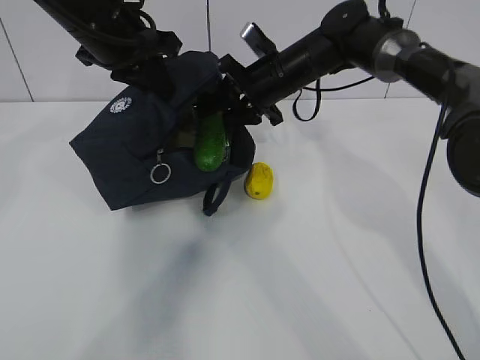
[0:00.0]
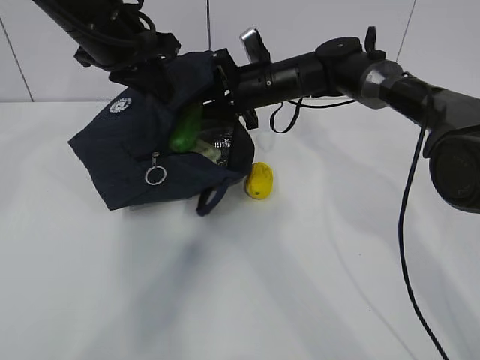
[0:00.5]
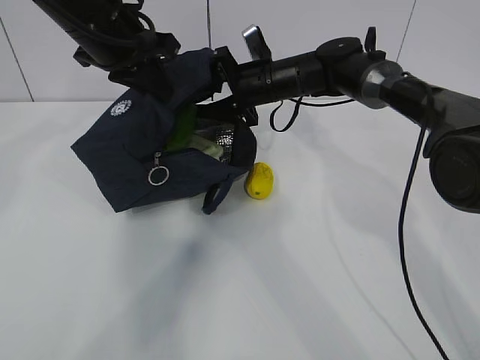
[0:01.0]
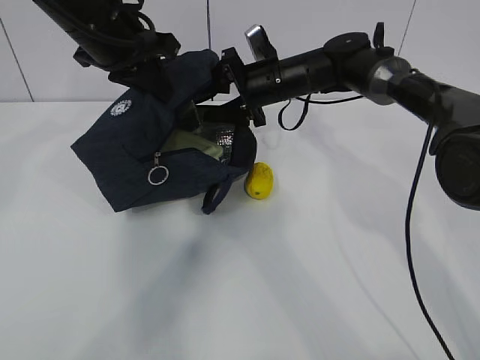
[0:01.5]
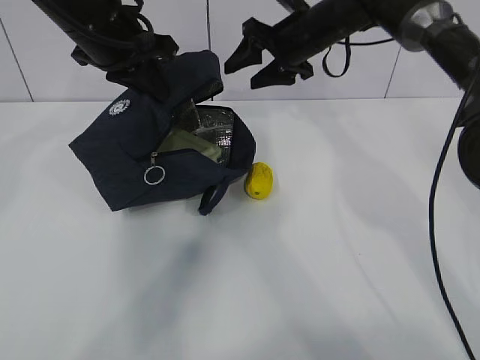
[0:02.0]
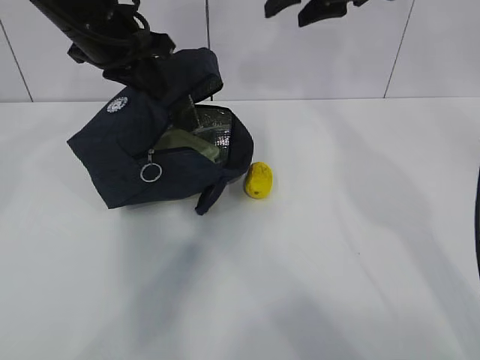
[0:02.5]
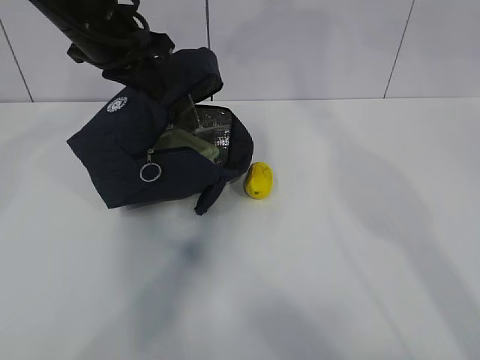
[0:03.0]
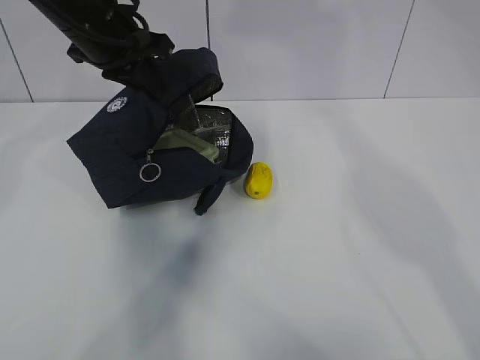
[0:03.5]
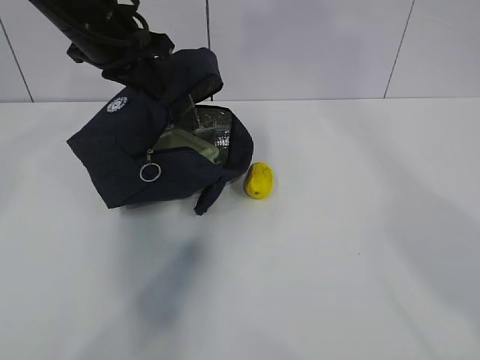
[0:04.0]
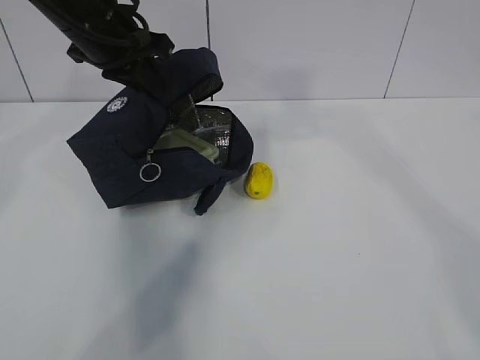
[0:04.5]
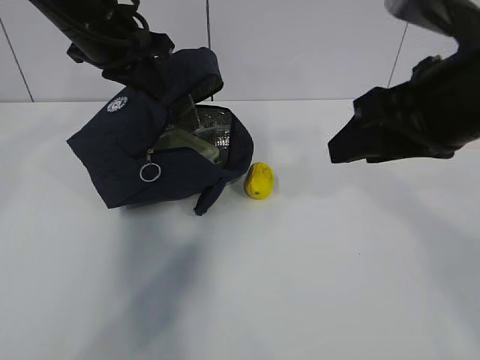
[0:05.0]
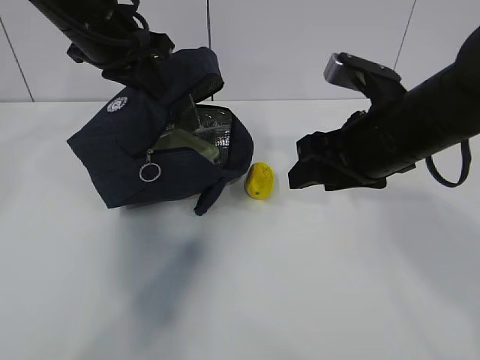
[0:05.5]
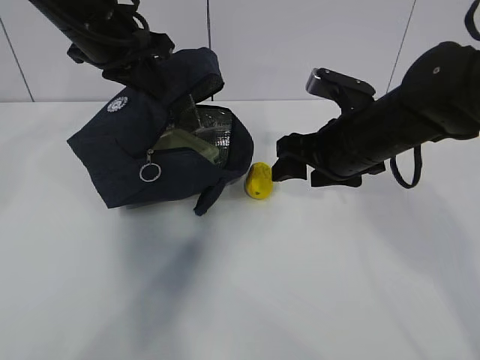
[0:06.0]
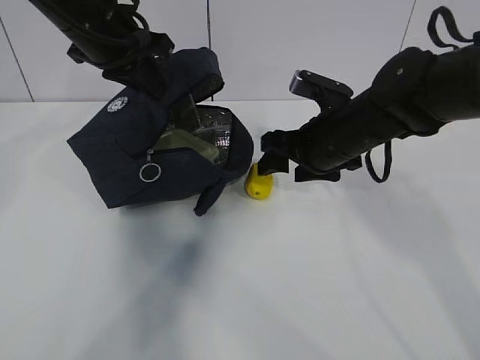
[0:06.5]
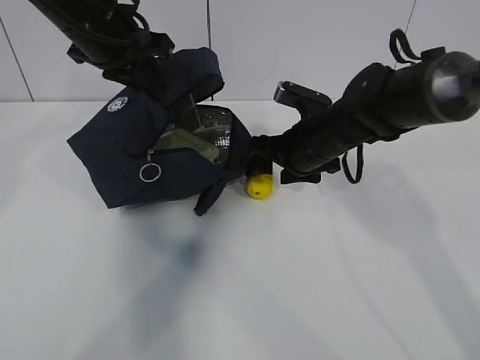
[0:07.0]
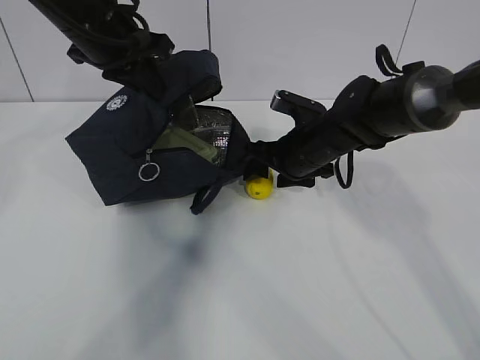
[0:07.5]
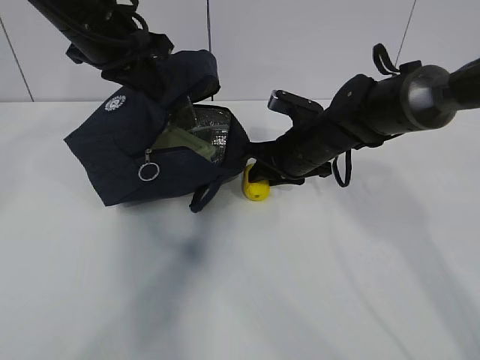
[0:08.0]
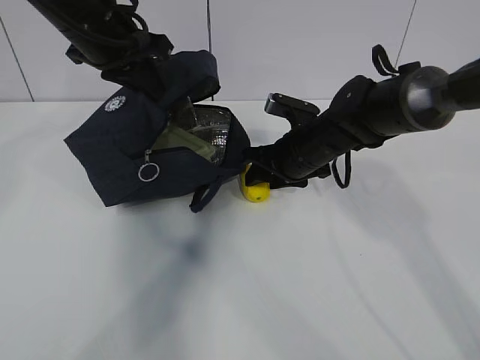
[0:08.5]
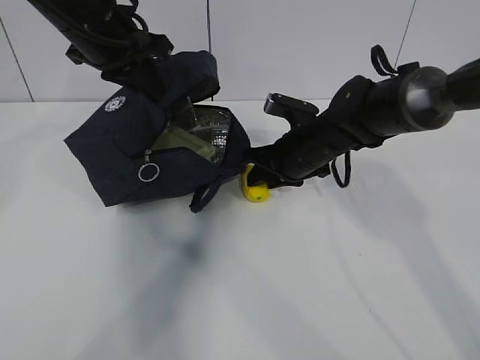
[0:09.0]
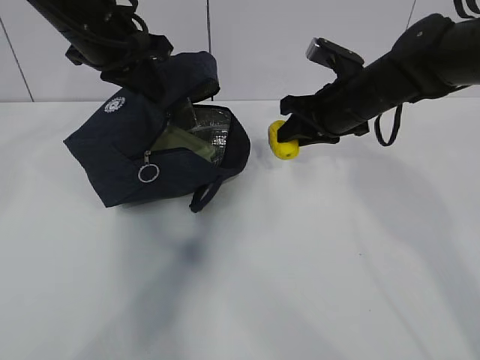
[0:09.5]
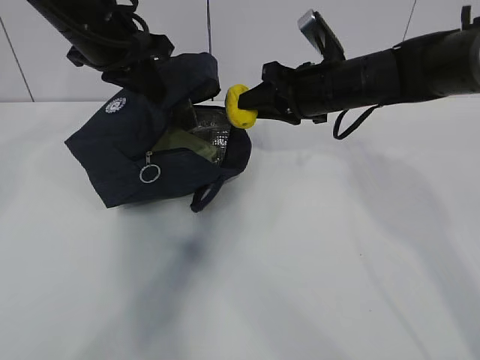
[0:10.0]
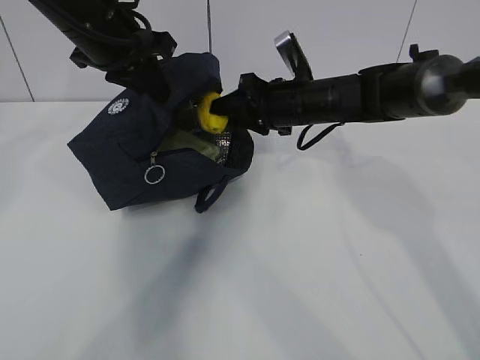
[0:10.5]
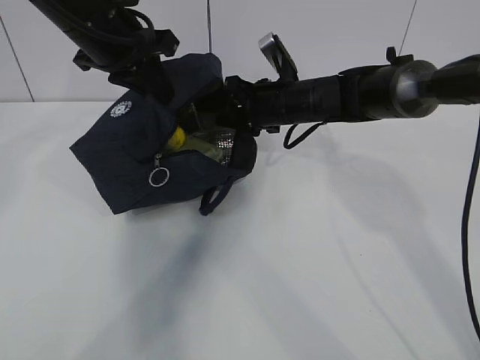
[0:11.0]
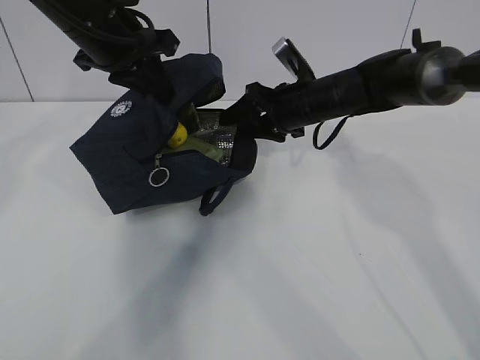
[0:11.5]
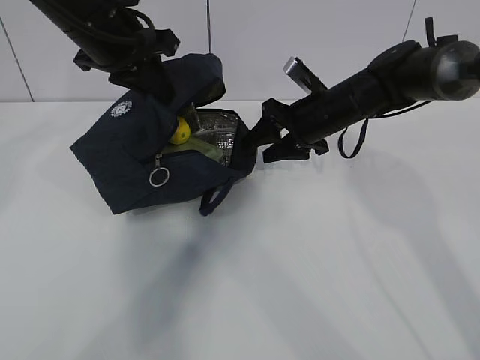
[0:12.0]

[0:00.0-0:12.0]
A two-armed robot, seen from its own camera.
Step, 0:00.0 to 0:03.0: Grab the lemon with your right hand.
Step, 0:06.0 to 0:06.5: Grab the lunch bag with your right hand.
Step, 0:07.0 to 0:08.5: Stand the lunch bag upright with your right hand.
0:00.0 to 0:02.0: The right gripper ends up approximately 5 cm from where it was, and opens.
0:02.0 to 0:04.0: The right gripper moves upward and backward, some 40 cm.
0:04.0 to 0:06.0: The right gripper heads downward, covering about 40 cm.
0:06.0 to 0:08.0: The right gripper shifts approximately 10 cm forward and downward, and closes.
0:08.0 to 0:10.0: The right gripper shifts approximately 10 cm upward.
0:10.0 to 0:12.0: The right gripper heads downward, covering about 5 cm, and opens up.

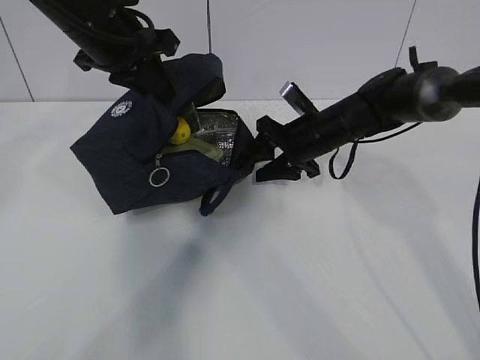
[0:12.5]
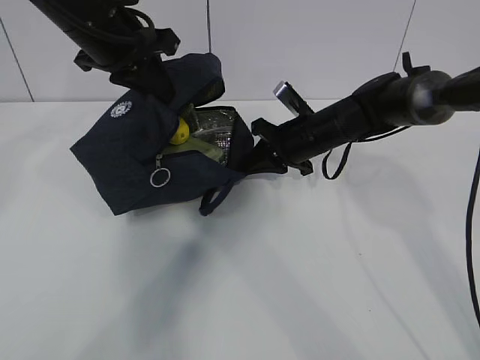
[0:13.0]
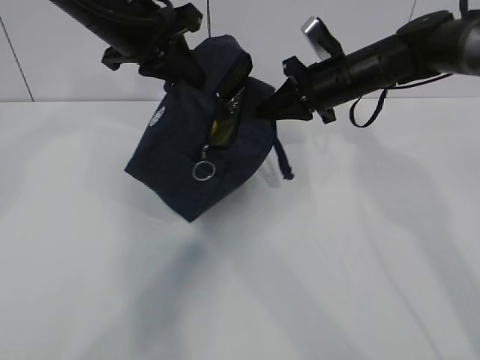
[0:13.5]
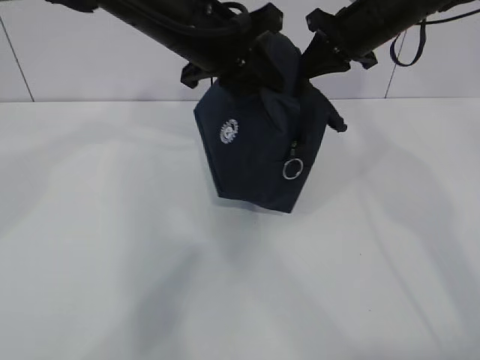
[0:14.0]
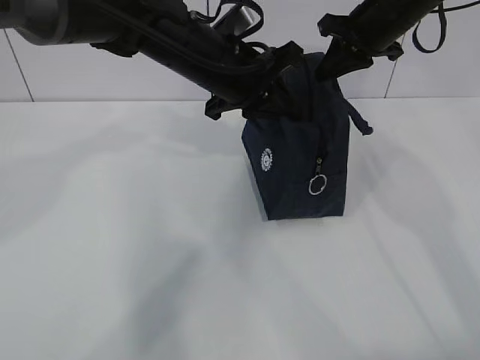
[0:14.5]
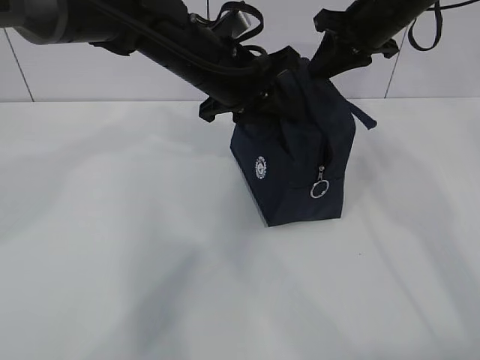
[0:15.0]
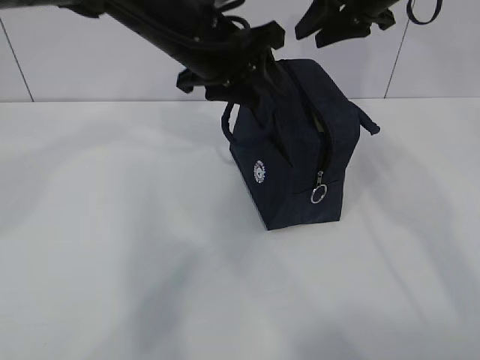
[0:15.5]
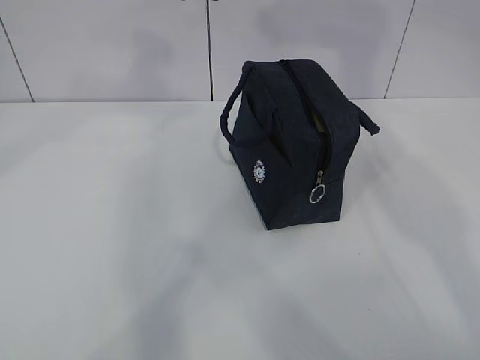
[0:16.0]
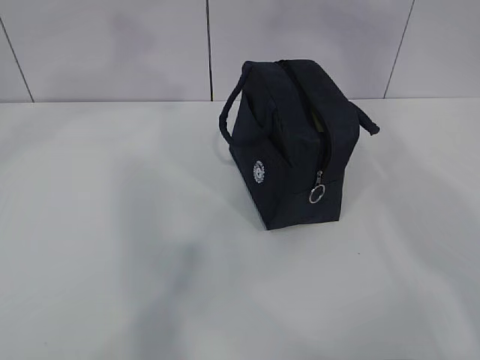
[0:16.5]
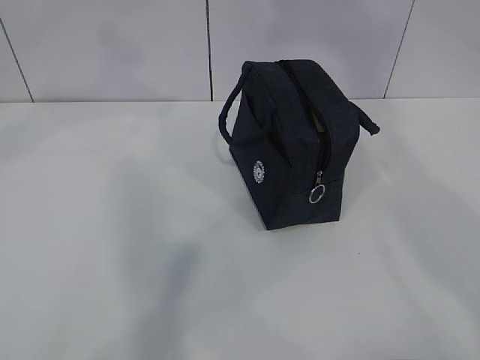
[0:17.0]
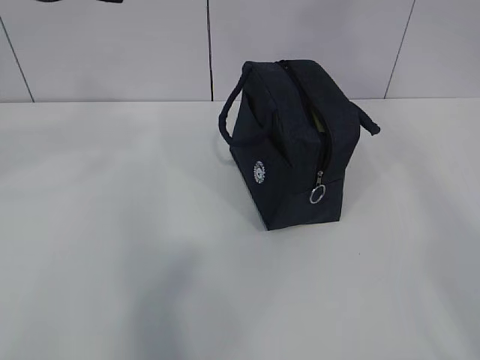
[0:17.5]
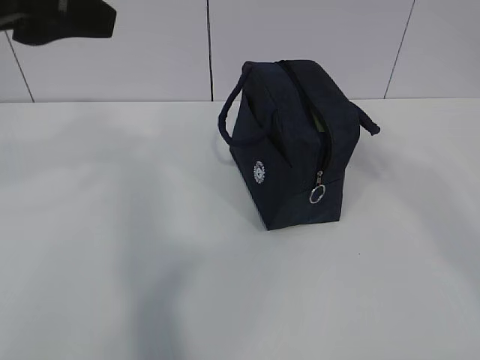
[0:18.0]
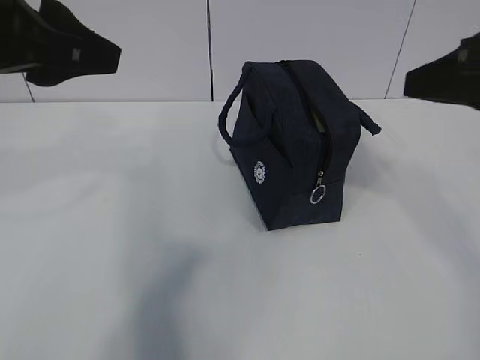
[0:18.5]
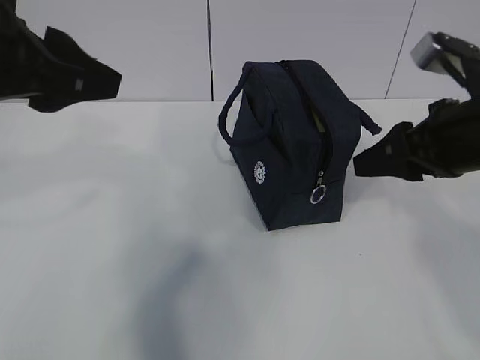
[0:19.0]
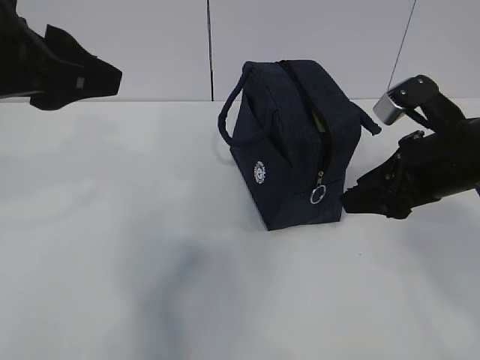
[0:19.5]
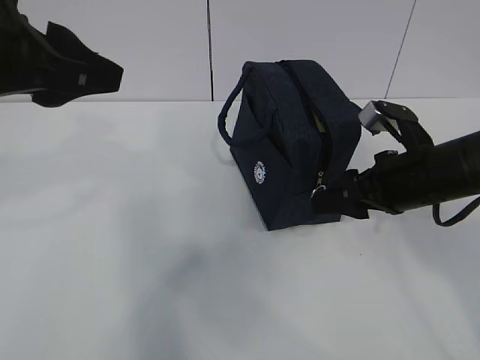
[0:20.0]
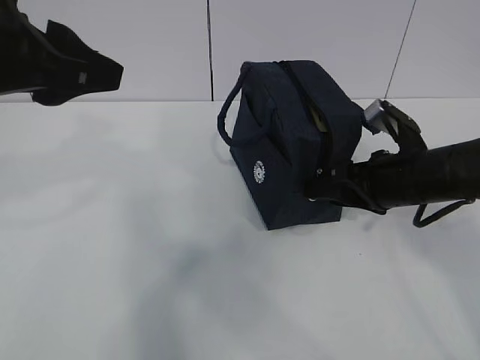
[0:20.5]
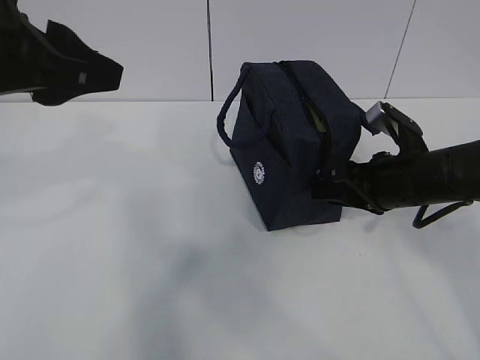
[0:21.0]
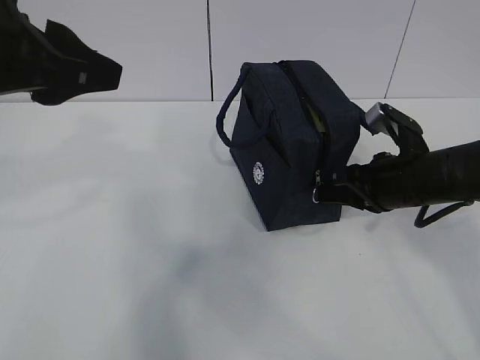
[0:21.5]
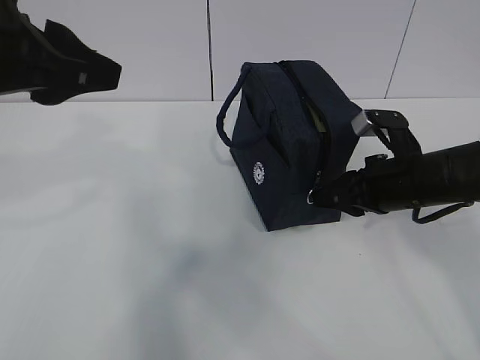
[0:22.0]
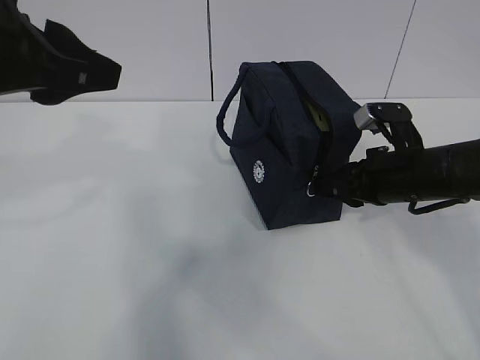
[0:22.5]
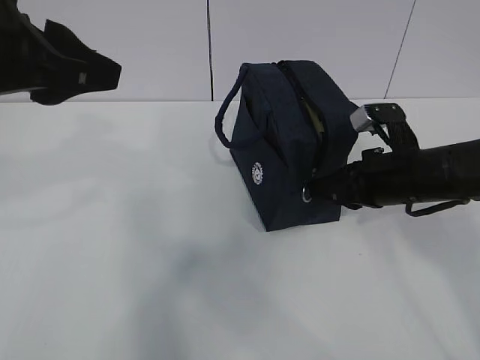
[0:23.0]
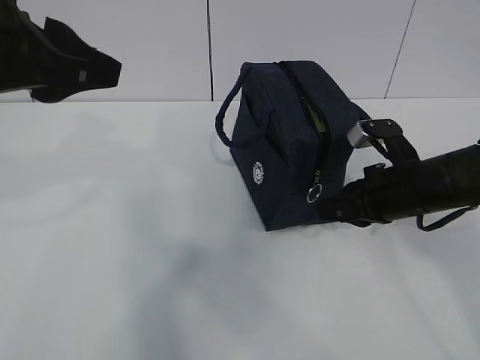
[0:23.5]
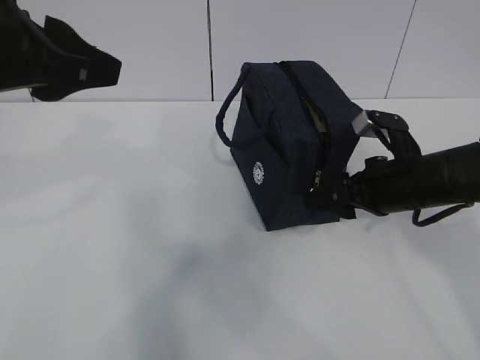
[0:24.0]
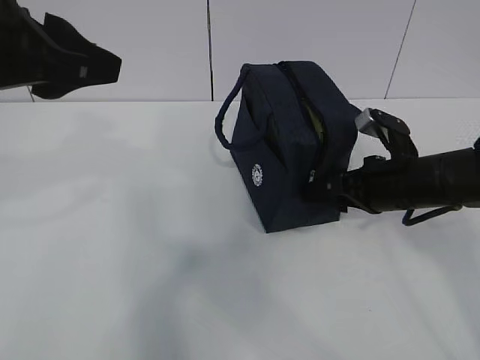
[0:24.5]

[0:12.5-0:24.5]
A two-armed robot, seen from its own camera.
0:12.5 to 0:14.5: The right gripper travels upward and to the right by about 15 cm, and closes. Meanwhile the left gripper travels to the right by roughly 10 cm.
0:14.5 to 0:16.5: The right gripper travels upward and backward by roughly 35 cm, and opens; the left gripper is displaced upward and to the left by roughly 20 cm, and opens its fingers.
0:16.5 to 0:18.5: The left gripper travels backward, downward and to the left by about 15 cm; the right gripper travels downward by some 25 cm.
0:18.5 to 0:20.5: The right gripper goes about 20 cm downward and forward, and opens up.
0:20.5 to 0:22.5: The right gripper closes.
0:22.5 to 0:24.5: The right gripper opens up.

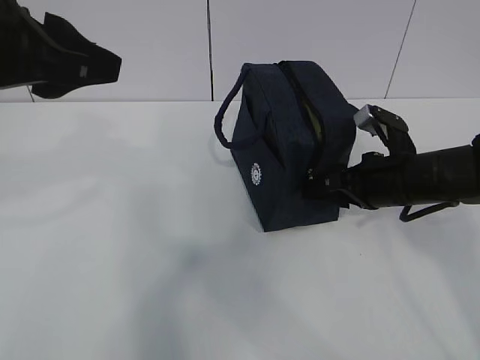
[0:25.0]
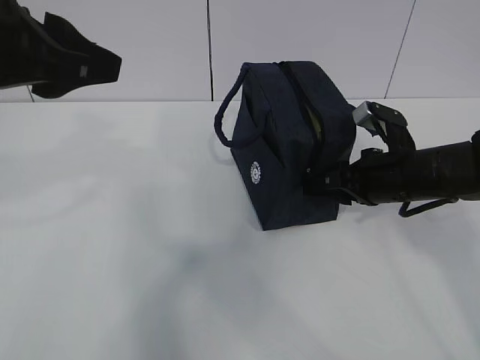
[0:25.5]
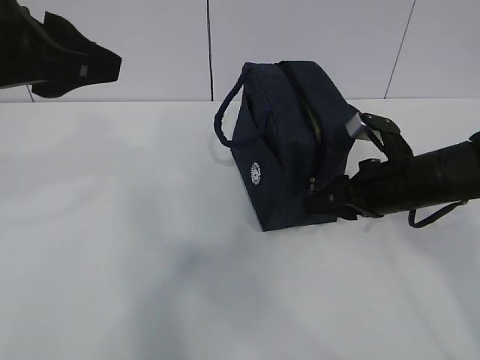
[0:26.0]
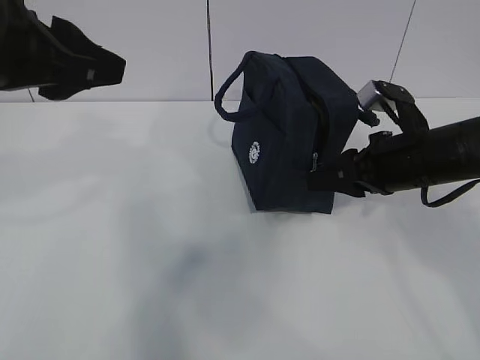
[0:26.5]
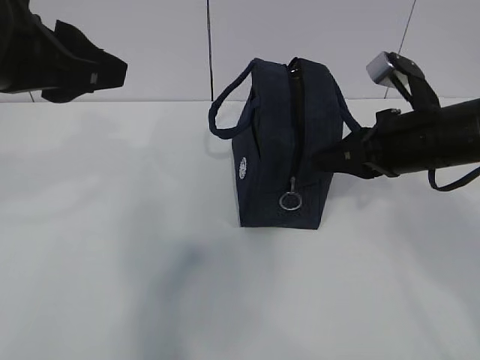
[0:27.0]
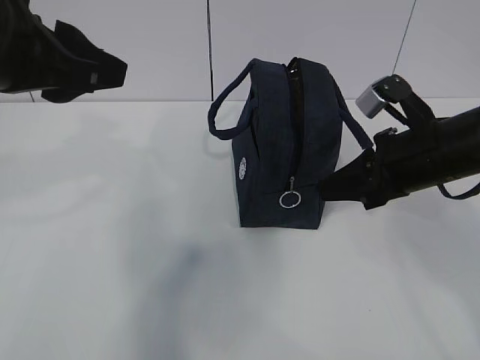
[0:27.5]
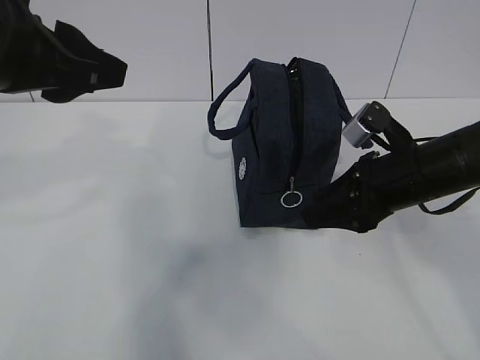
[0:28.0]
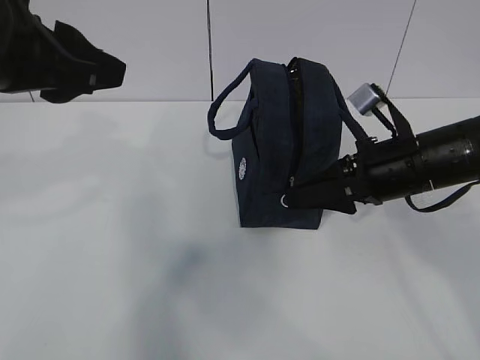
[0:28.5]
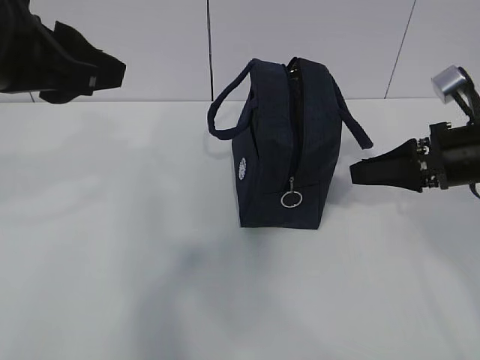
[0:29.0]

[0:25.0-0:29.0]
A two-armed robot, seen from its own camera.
0:25.0 to 0:27.0: The right gripper shifts some 10 cm upward, and closes.
0:27.0 to 0:29.0: The right gripper heads to the right, covering about 5 cm, and opens up.
